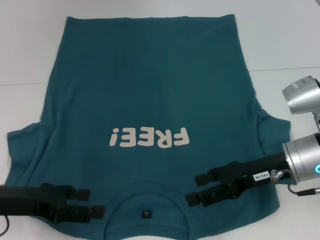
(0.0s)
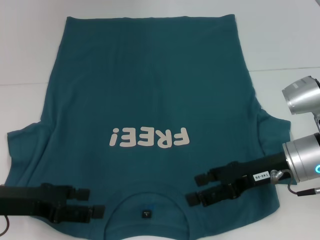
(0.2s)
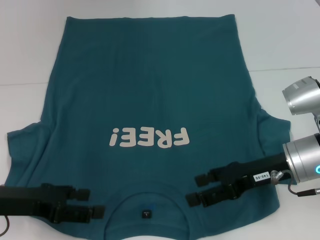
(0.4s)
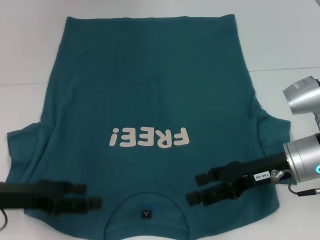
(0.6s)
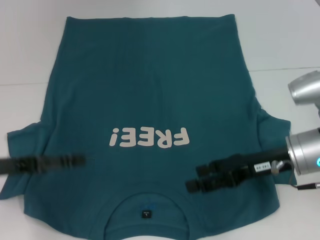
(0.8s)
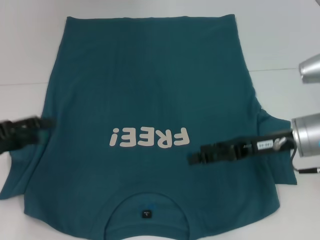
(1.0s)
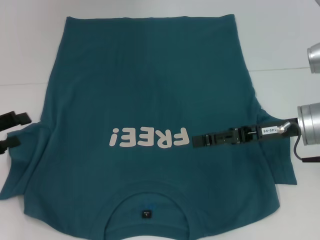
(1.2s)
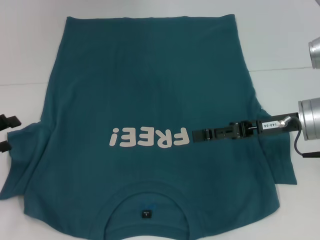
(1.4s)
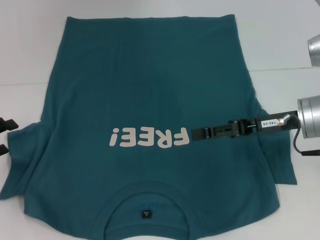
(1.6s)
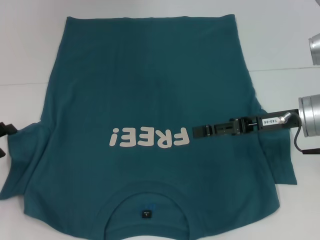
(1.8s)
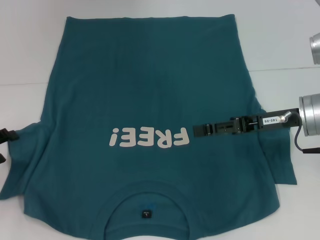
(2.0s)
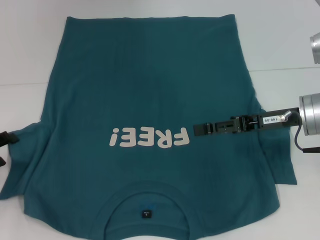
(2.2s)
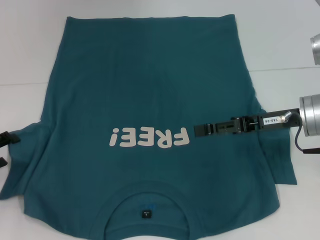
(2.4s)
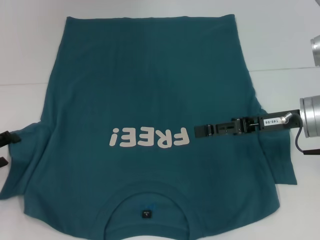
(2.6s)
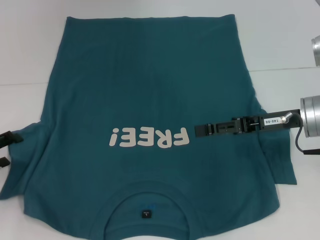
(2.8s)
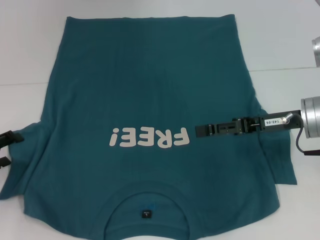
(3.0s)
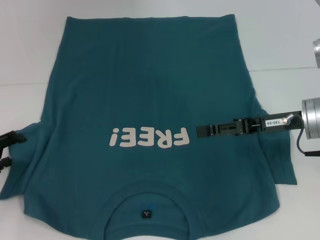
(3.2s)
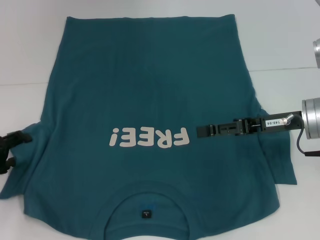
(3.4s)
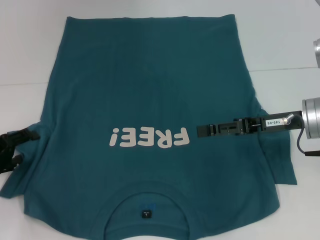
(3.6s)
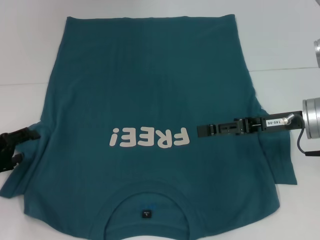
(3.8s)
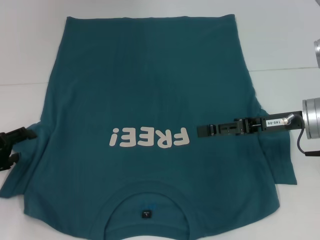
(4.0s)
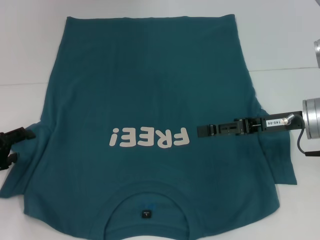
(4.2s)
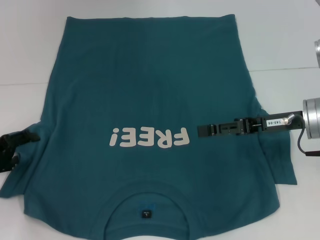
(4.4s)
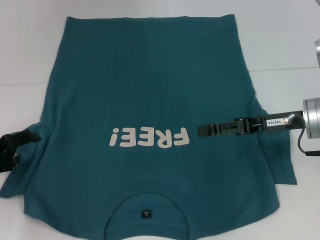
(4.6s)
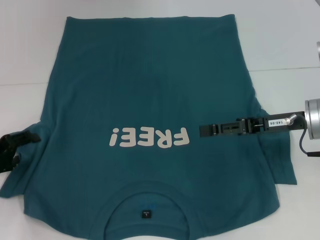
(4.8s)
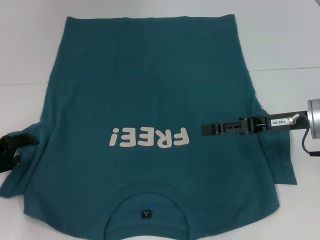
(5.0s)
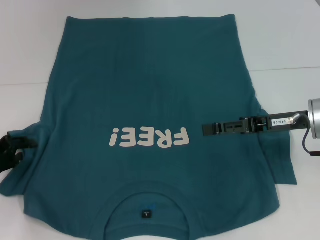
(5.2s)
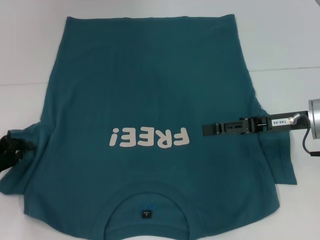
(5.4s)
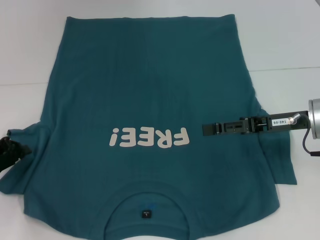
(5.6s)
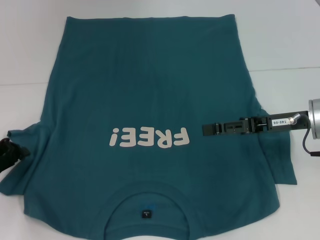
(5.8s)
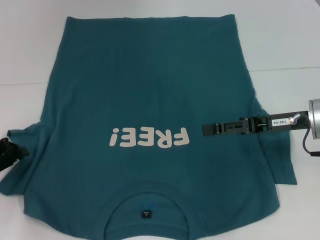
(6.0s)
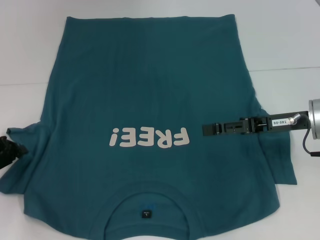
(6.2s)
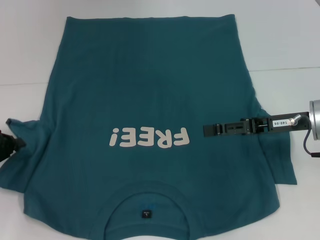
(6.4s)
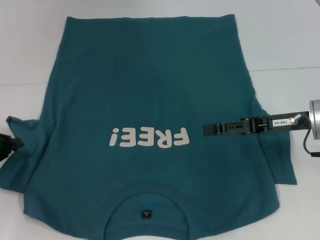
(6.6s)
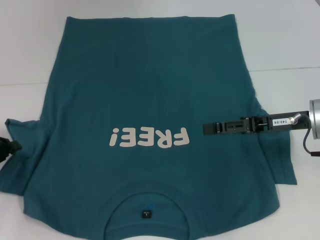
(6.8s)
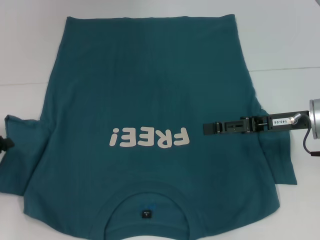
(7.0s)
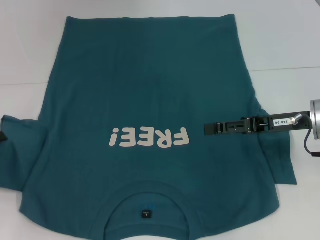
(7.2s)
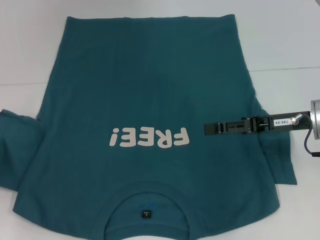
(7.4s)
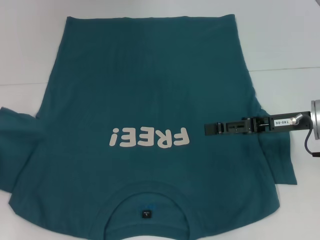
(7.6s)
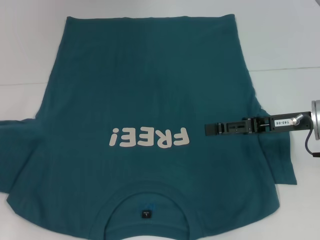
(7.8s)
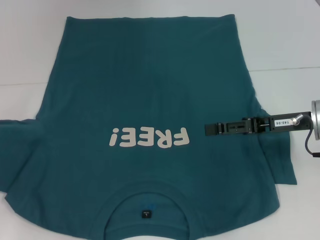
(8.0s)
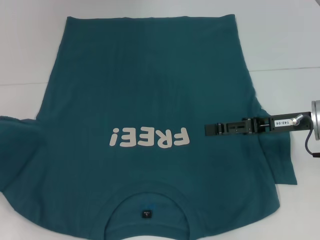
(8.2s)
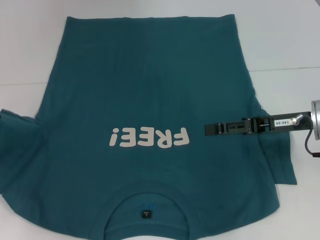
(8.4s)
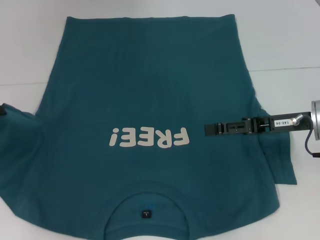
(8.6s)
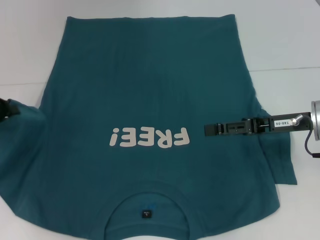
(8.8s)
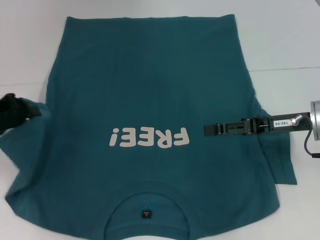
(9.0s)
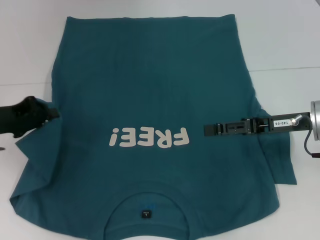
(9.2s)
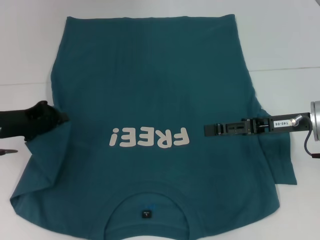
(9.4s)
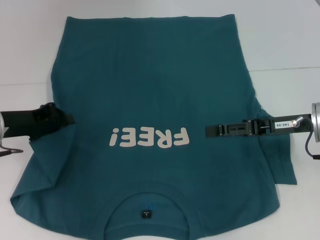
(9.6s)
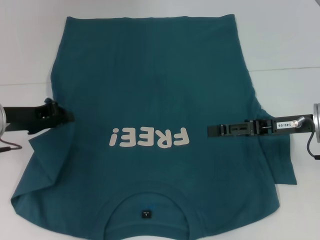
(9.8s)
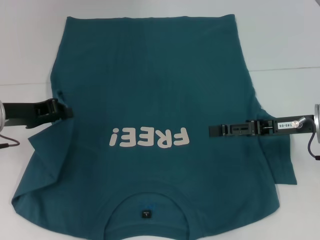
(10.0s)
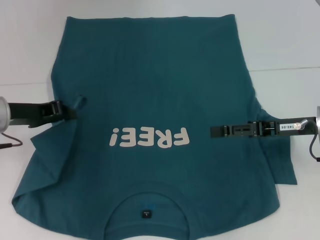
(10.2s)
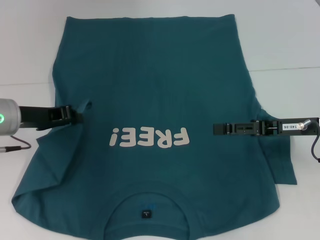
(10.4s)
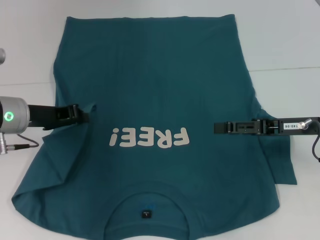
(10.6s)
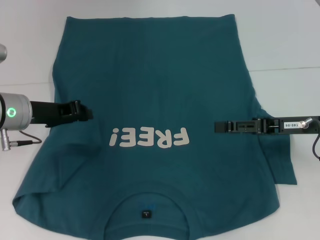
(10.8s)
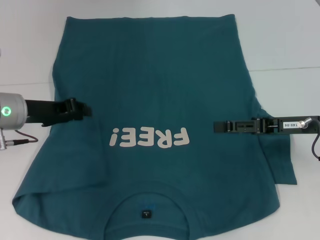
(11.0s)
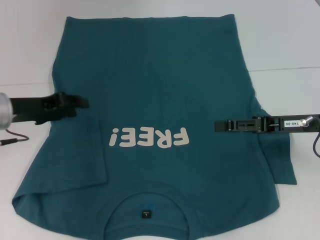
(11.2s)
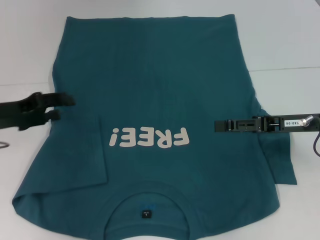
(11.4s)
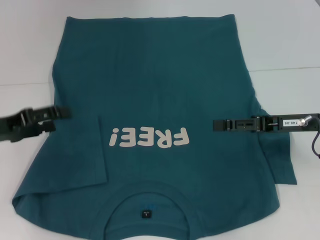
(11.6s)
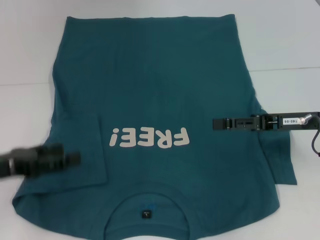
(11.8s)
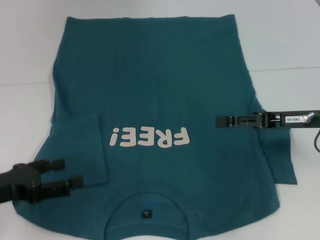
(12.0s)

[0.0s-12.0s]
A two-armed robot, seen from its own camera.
Step, 0.0s to 11.0s: Fold the bottom left sleeve with your left hand.
0.0s to 1.6s: The left gripper goes about 10 cm to the left; the right gripper moves roughly 5 cm.
1.6s to 4.4s: The grippers stay close to where they were, moving slightly.
4.4s to 6.0s: The left gripper closes.
6.0s to 7.6s: The left gripper shifts by roughly 5 cm.
7.6s to 9.0s: The left gripper shifts about 5 cm to the right.
9.0s to 10.4s: The left gripper shifts some 10 cm to the right.
10.4s to 12.0s: The left gripper moves backward and to the left, some 15 cm, and opens.

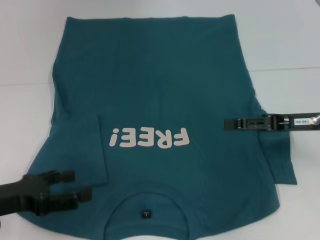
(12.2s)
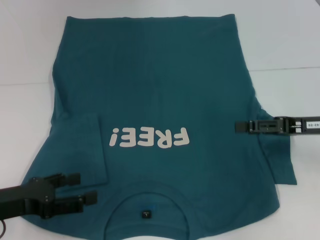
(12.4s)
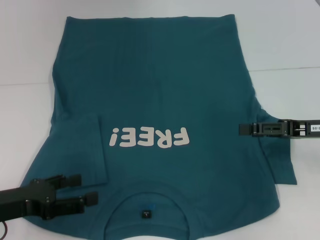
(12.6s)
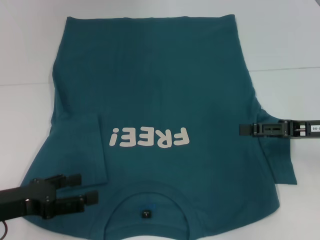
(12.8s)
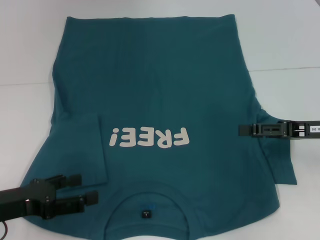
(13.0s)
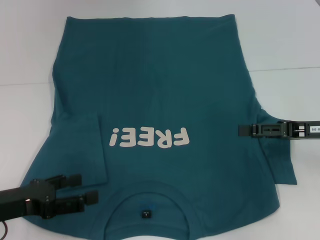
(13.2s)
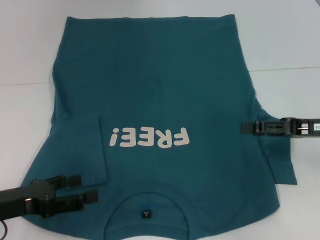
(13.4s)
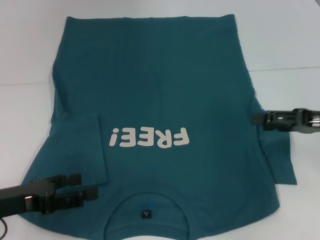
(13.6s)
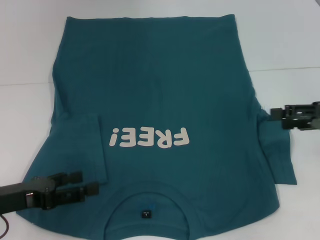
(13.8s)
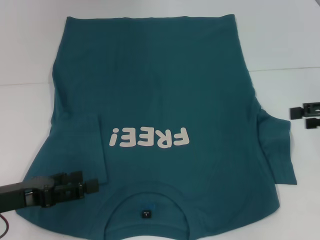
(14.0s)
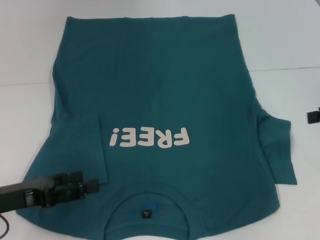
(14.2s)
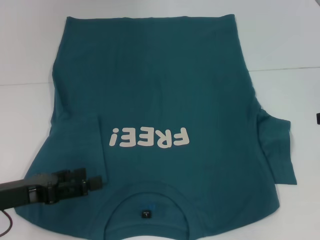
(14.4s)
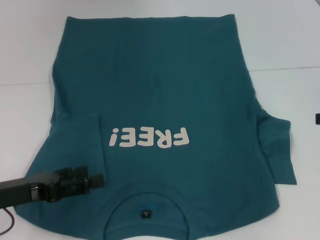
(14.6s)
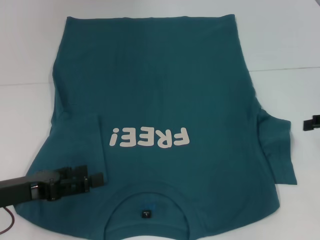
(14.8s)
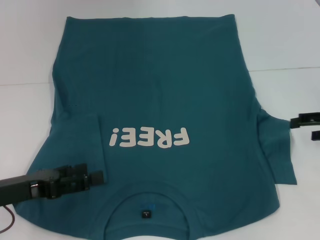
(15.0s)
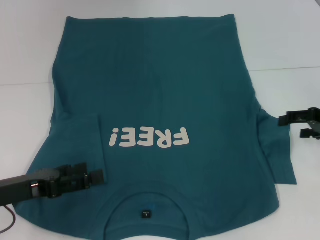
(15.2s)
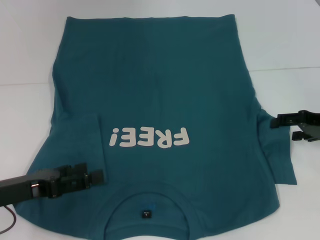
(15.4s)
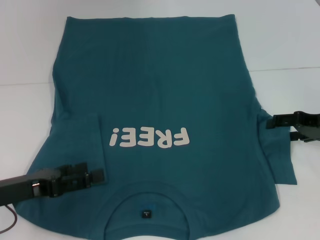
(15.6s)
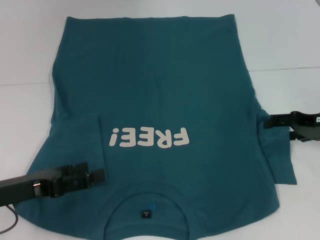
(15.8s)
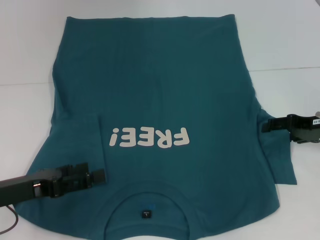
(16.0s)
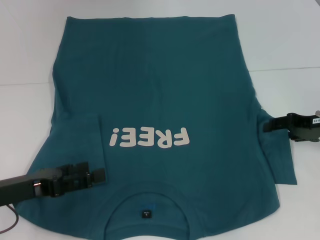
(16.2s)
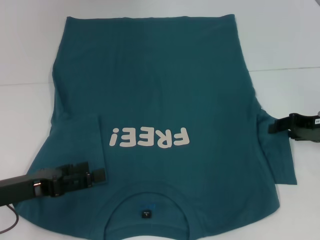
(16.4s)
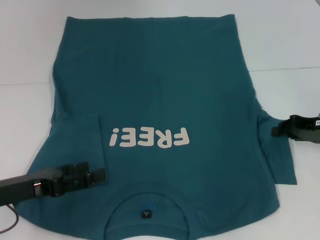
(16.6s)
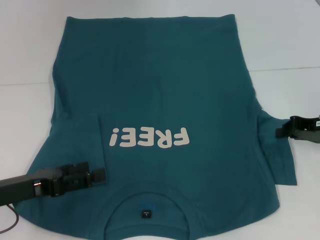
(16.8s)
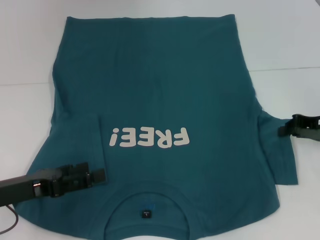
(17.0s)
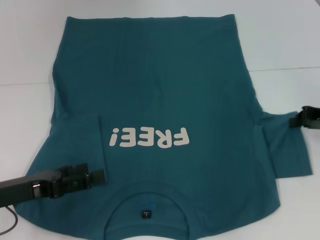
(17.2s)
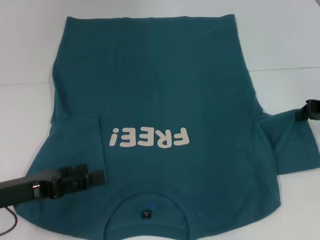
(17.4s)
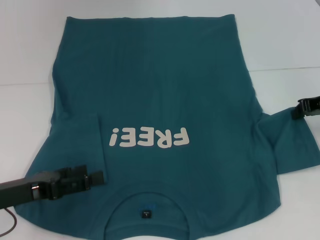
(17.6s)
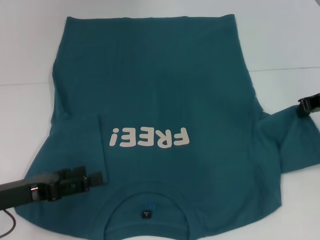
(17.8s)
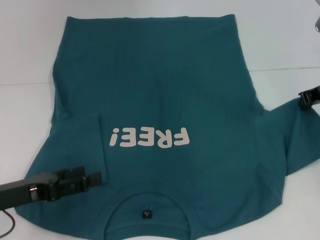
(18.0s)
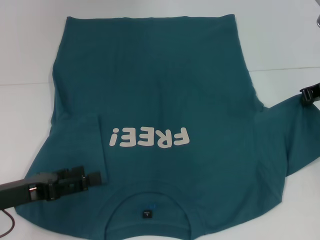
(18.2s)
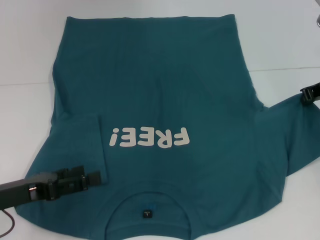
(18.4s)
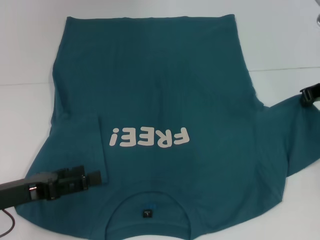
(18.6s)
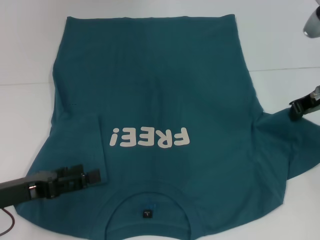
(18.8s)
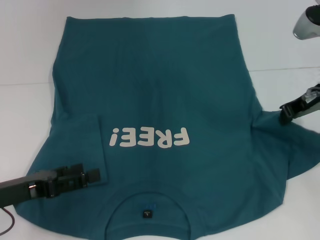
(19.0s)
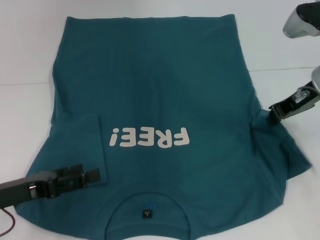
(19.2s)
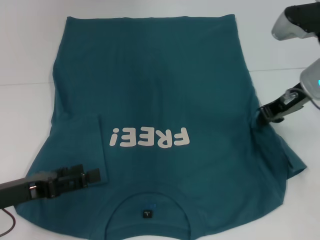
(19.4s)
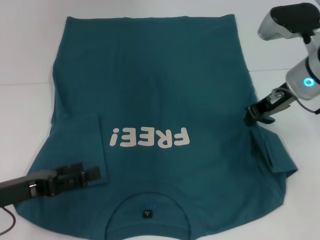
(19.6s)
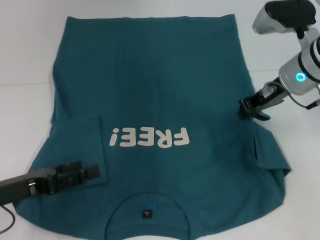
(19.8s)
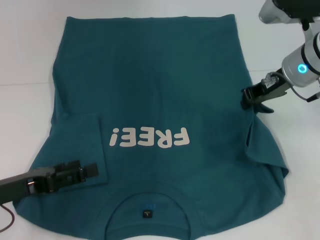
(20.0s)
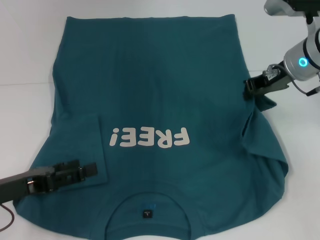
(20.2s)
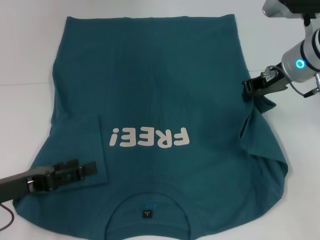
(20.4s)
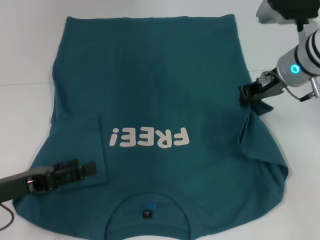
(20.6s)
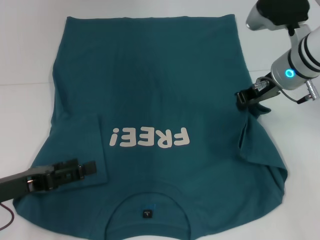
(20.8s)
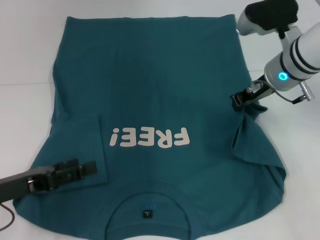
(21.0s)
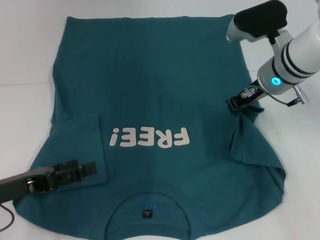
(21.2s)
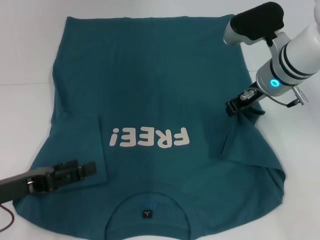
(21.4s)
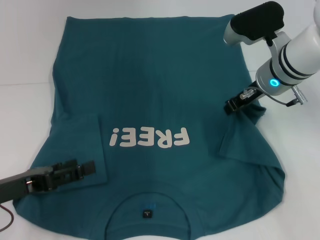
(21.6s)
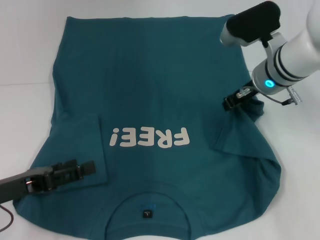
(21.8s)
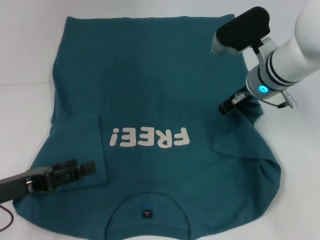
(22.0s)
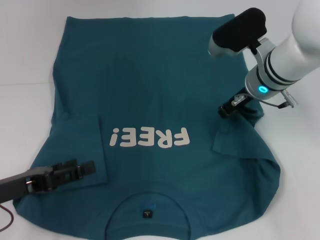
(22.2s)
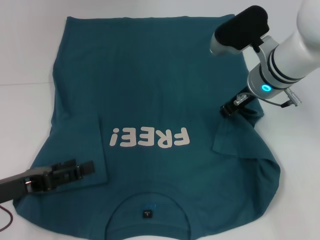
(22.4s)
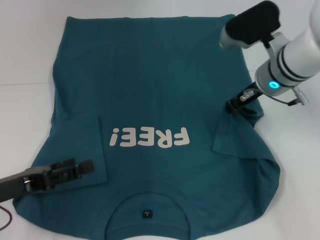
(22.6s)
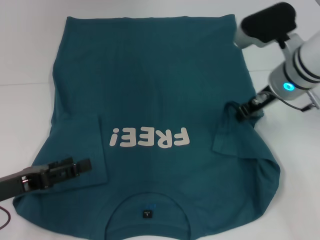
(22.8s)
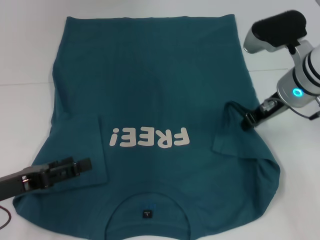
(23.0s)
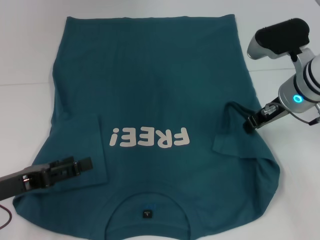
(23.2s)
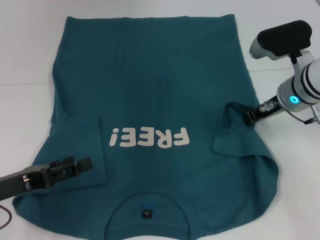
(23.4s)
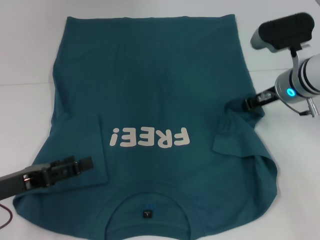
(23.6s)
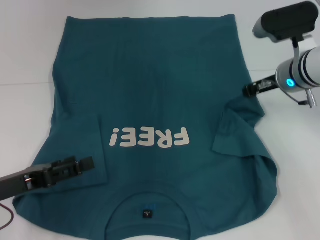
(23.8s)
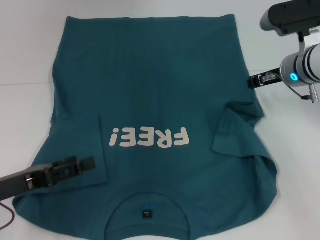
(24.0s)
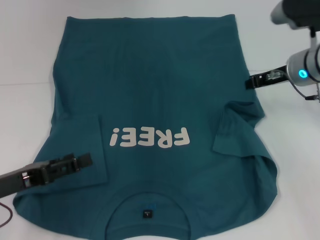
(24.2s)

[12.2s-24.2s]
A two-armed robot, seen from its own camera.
12.2s to 13.8s: The right gripper is displaced to the right by about 5 cm.
15.2s to 16.6s: The right gripper closes its fingers.
16.6s to 18.2s: The right gripper shifts about 10 cm upward, and closes.
18.2s to 19.8s: The right gripper moves to the left, about 10 cm.
19.8s to 21.2s: The grippers move only a little.
21.2s to 22.6s: The grippers make only small movements.
22.6s to 24.2s: The right gripper heads to the right, covering roughly 5 cm.
